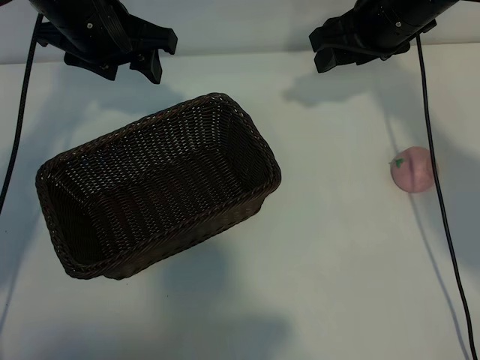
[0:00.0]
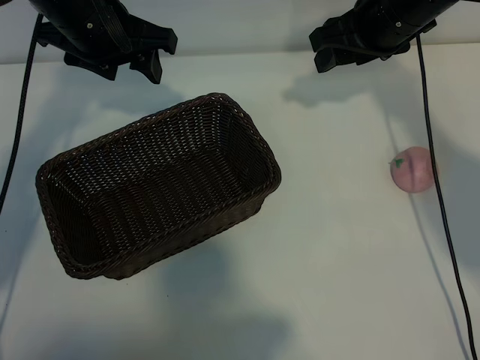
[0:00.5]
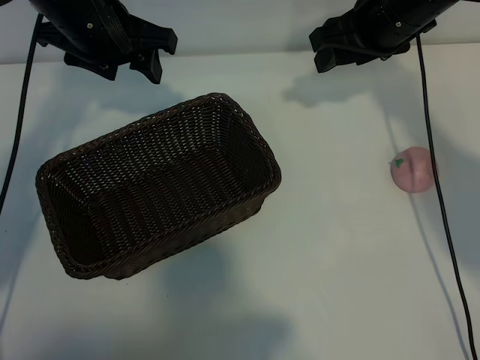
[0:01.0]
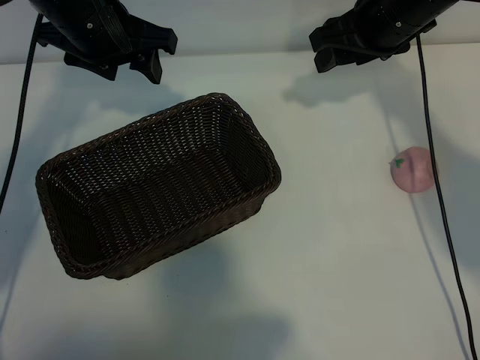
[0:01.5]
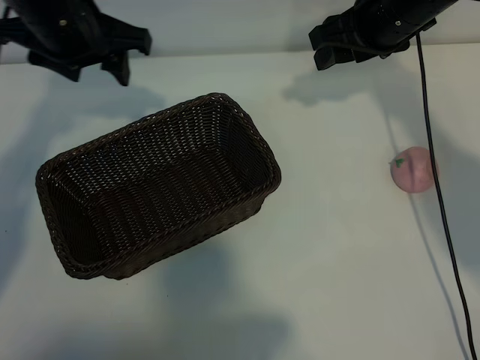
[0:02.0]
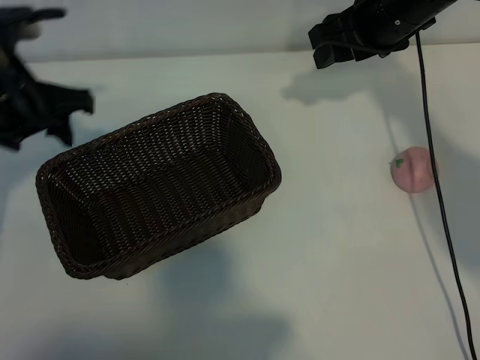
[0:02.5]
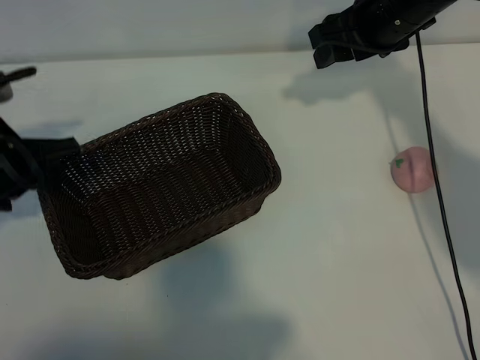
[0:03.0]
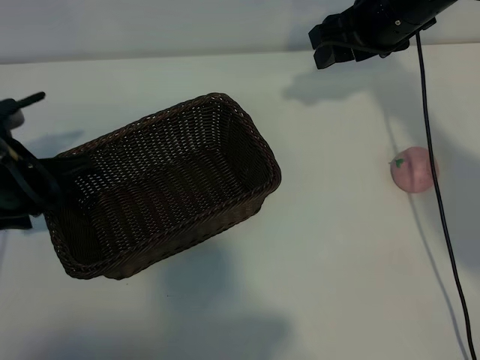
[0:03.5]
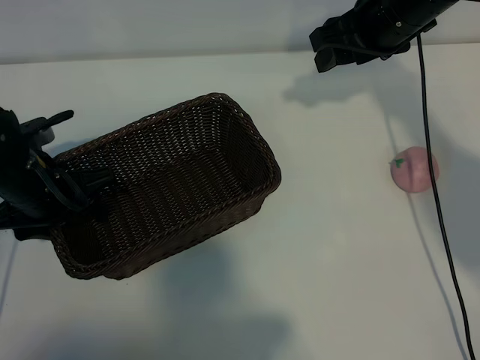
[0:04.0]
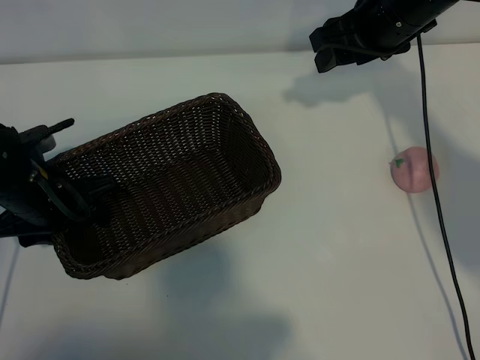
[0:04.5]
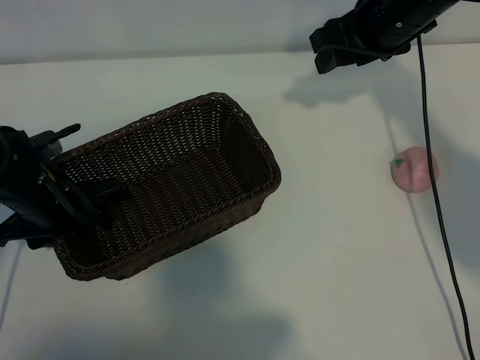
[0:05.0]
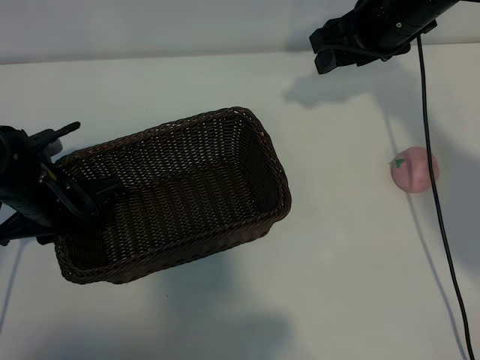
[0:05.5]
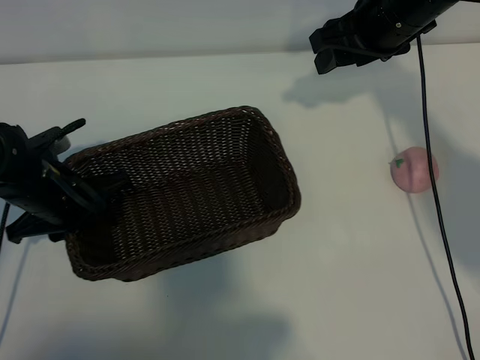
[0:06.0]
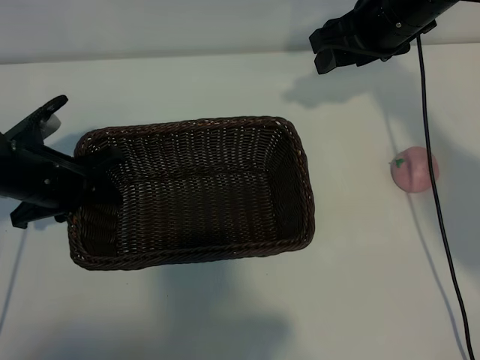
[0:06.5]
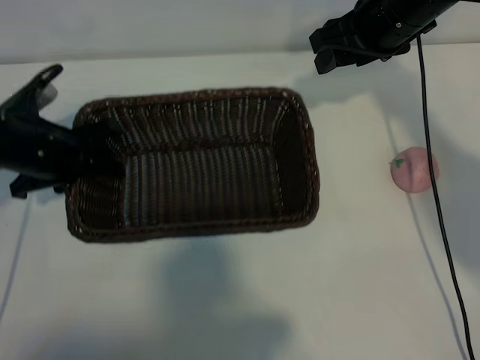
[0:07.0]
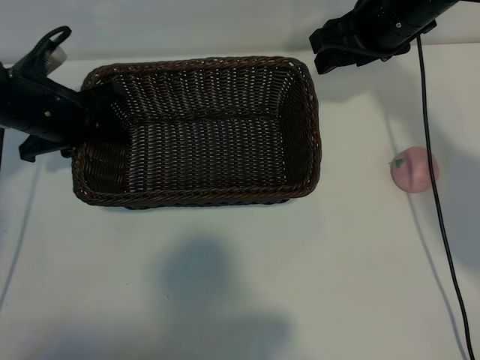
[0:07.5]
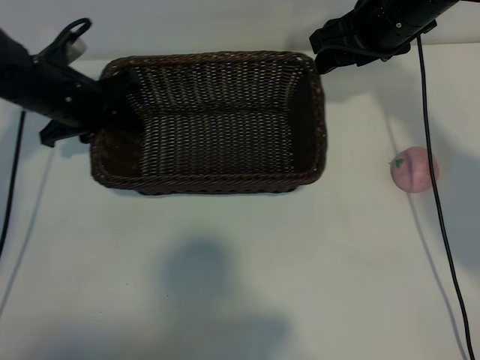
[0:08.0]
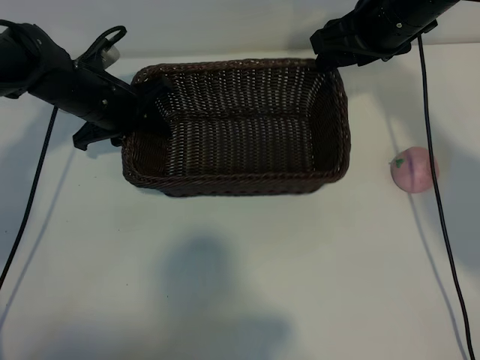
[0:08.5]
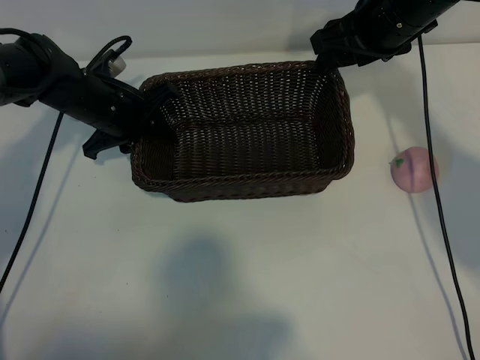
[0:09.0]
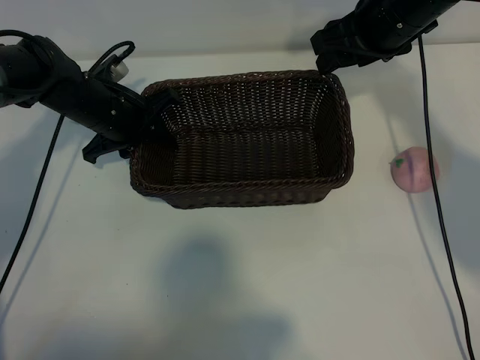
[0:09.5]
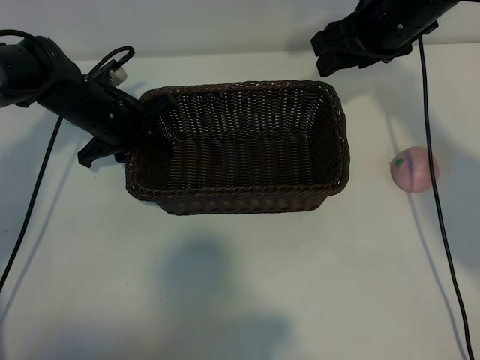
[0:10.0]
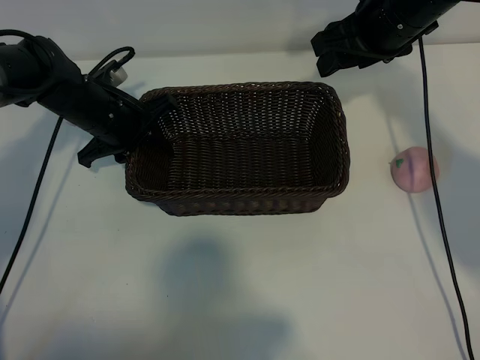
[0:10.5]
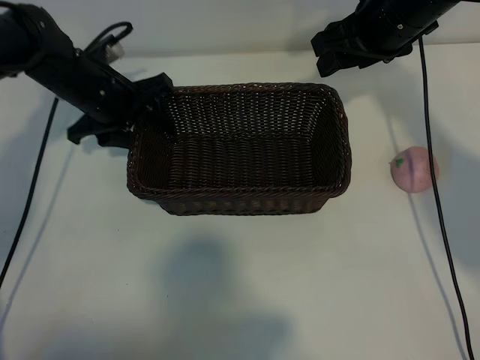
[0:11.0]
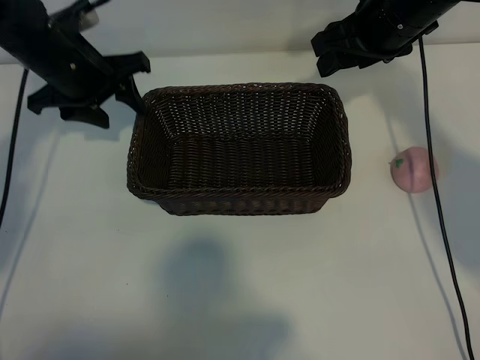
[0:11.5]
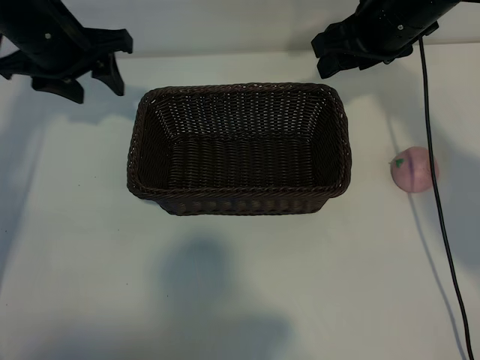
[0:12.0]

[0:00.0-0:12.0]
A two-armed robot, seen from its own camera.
Task of the whole recording: pick up the peach and put it into the basket.
Step, 0:02.0 to 0:05.5: Grasp the basket with left gripper.
Step, 0:06.0 to 0:11.0: Place the basket in the center of view with left gripper.

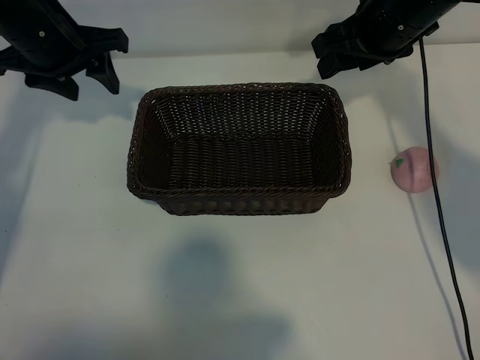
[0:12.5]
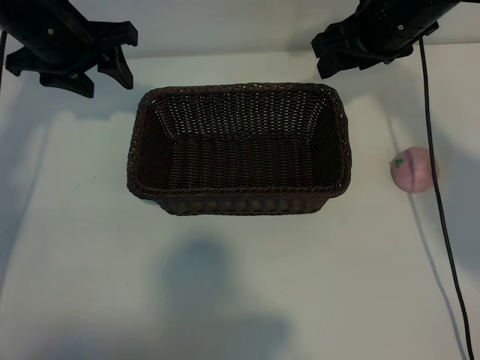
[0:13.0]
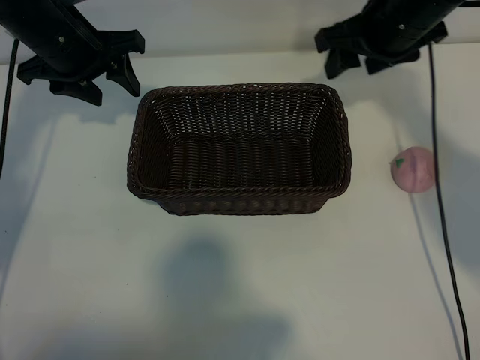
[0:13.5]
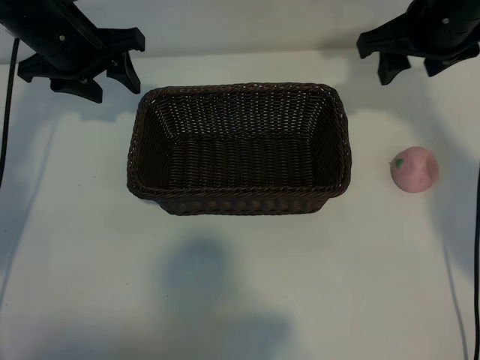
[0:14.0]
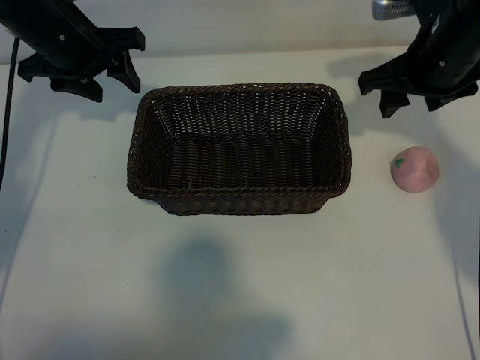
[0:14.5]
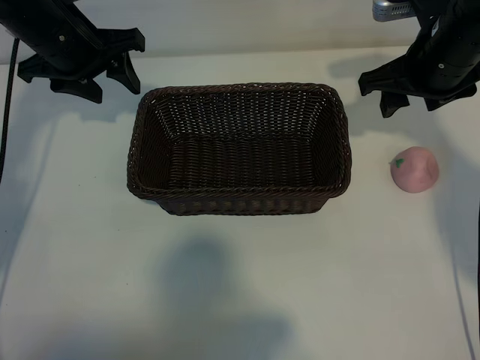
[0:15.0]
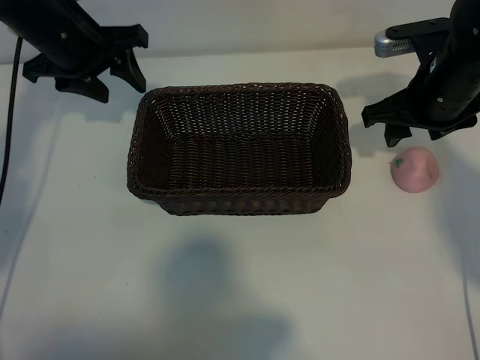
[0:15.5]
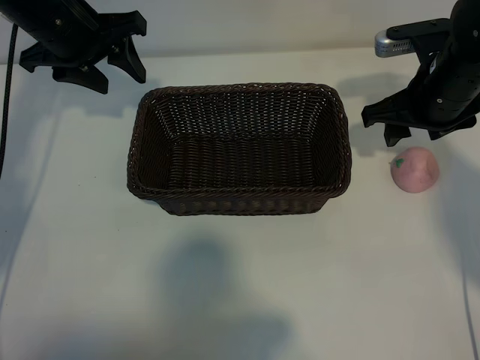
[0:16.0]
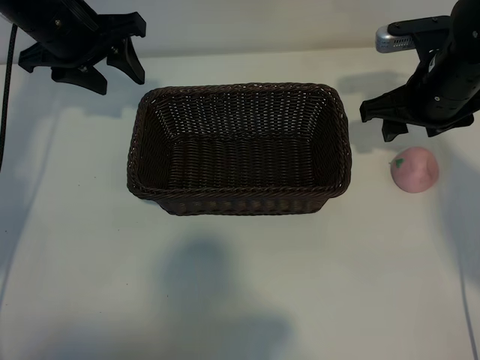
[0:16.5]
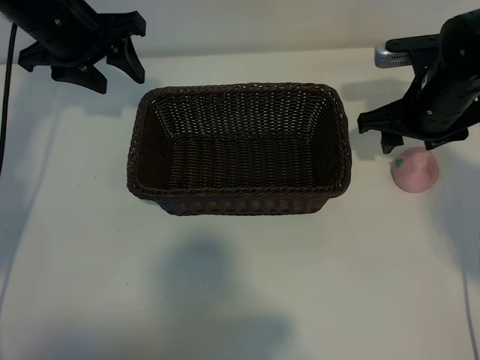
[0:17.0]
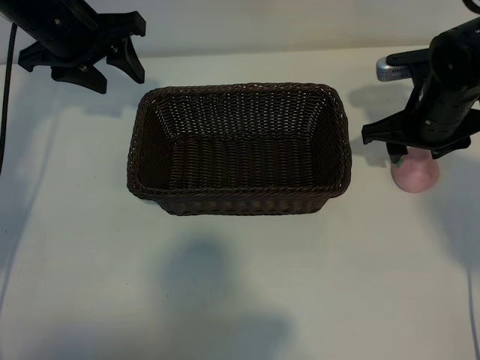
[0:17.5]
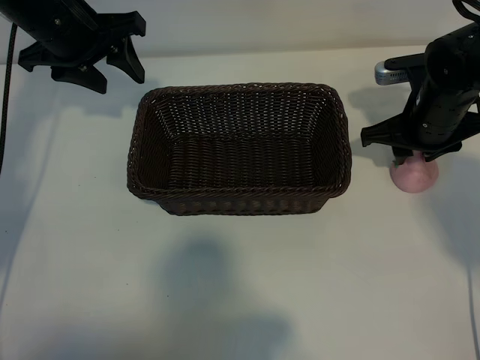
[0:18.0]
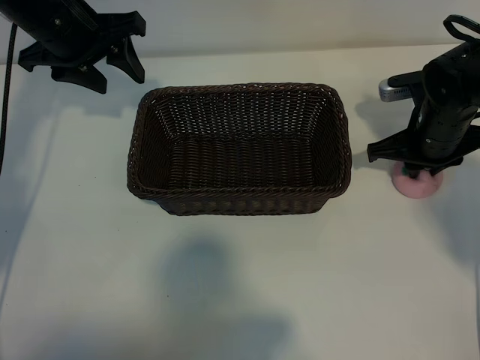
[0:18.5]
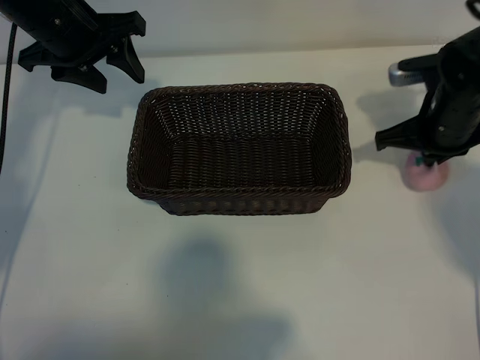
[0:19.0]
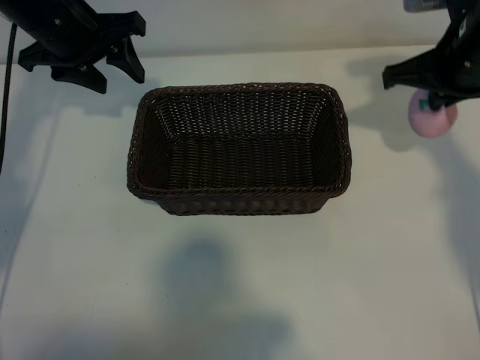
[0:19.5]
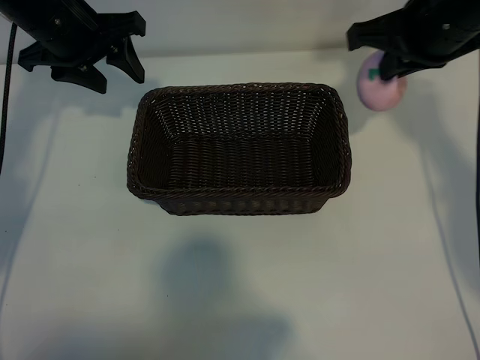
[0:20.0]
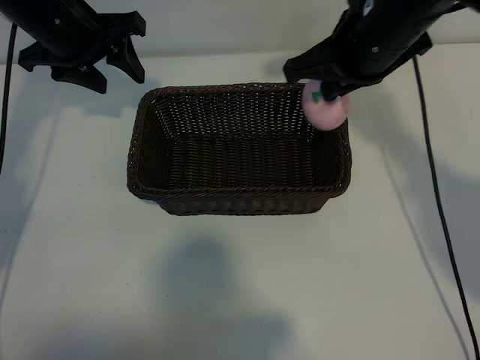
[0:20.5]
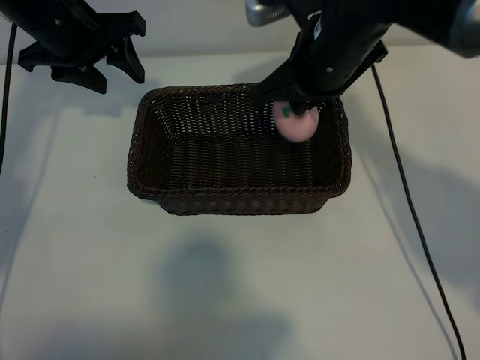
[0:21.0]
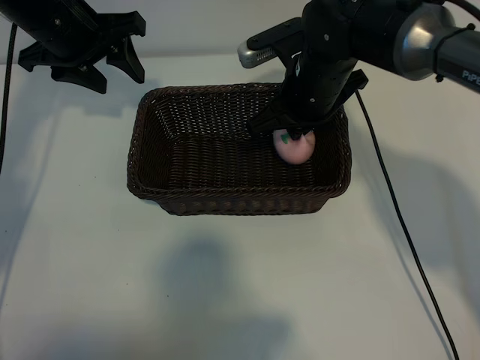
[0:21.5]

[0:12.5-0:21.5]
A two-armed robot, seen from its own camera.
Task of the whole recording: pick up the peach and put it into the basket.
Step, 0:12.5 to 0:18.5: Grasp the peach with right gripper.

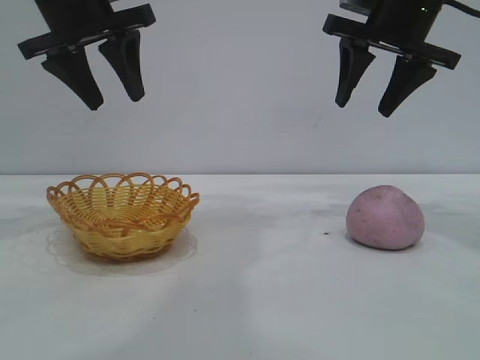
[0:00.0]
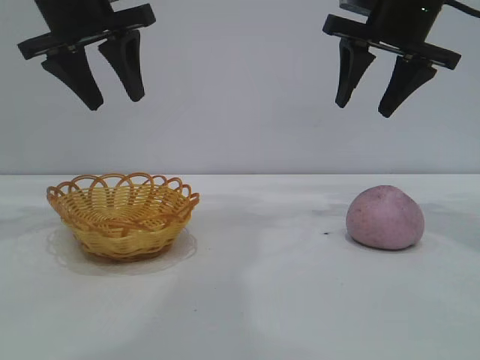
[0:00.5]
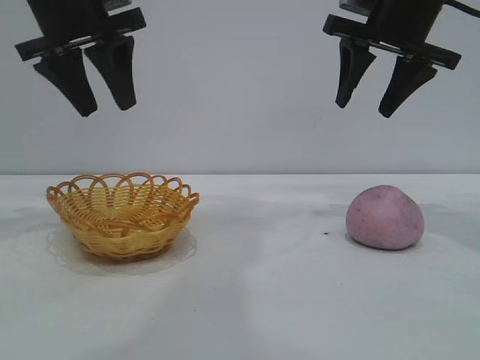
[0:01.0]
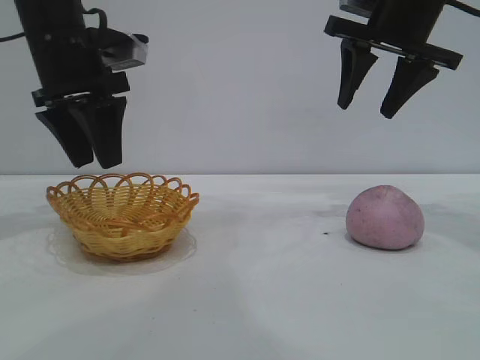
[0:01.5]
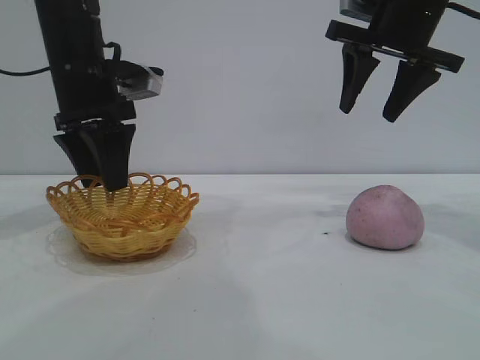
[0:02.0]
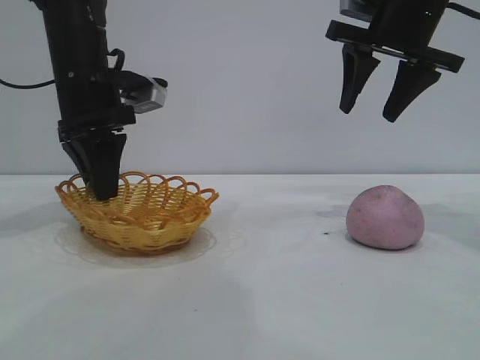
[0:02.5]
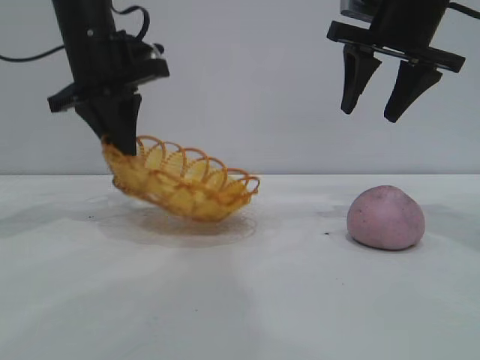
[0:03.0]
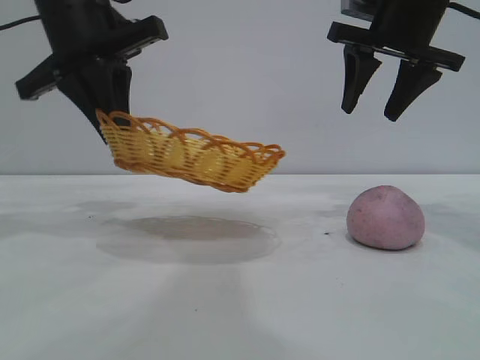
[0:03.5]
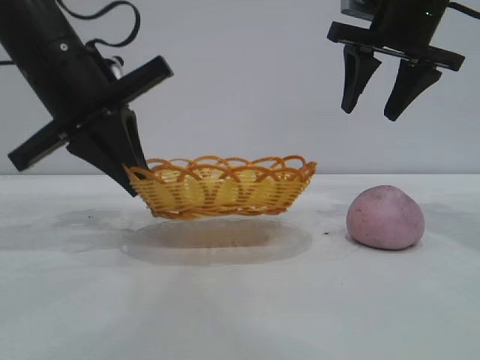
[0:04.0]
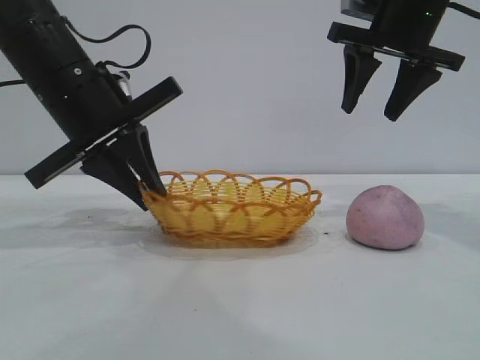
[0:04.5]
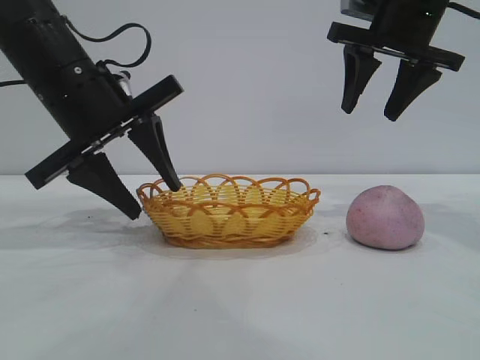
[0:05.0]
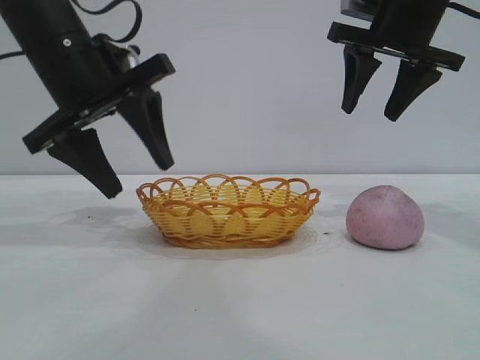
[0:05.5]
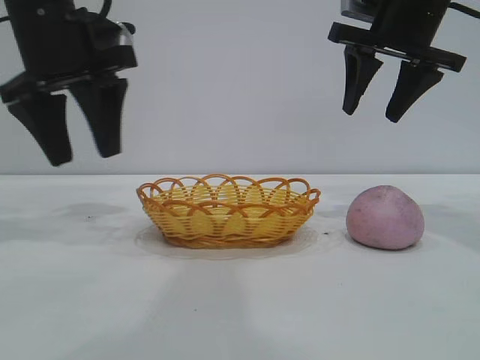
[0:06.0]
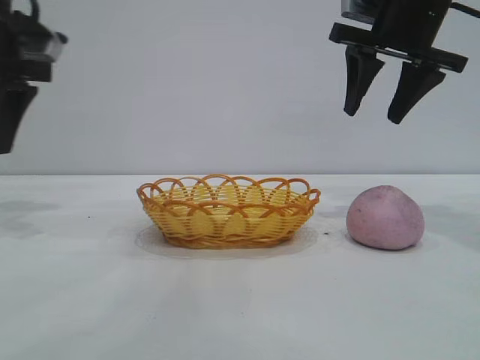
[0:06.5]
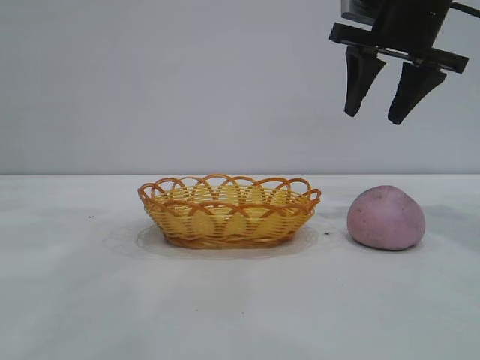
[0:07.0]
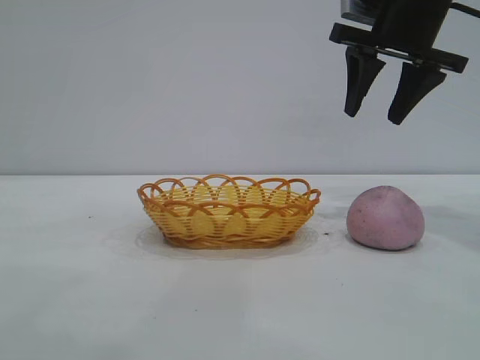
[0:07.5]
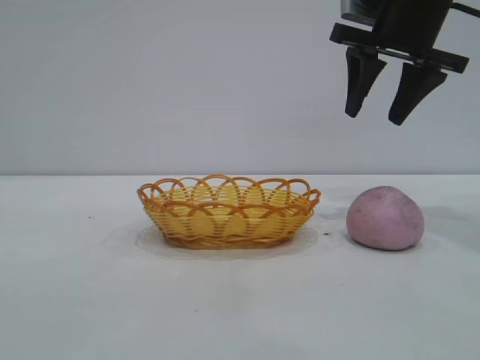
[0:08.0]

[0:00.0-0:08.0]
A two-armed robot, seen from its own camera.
Task of the whole recording: pick up the peach and put it into the basket.
Step, 0:00.0 to 0:05.5: Move the basket to the center of view.
